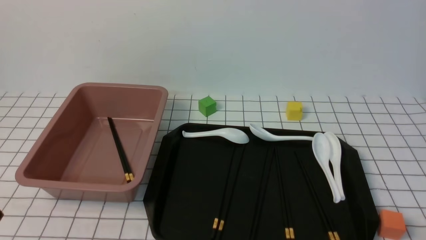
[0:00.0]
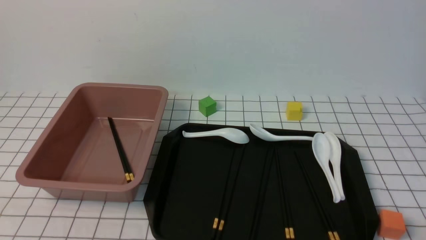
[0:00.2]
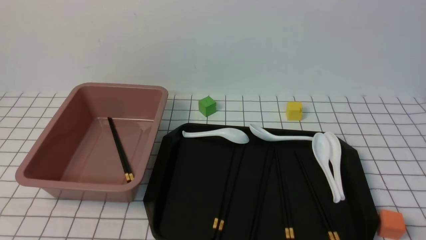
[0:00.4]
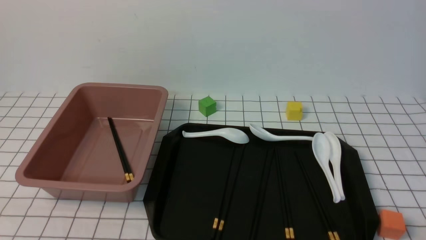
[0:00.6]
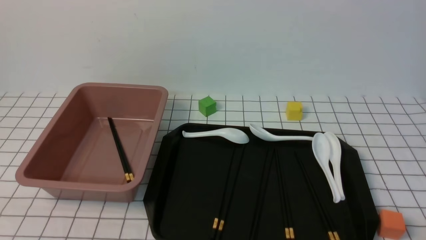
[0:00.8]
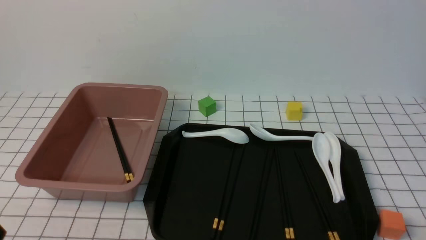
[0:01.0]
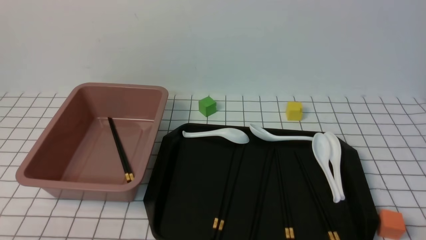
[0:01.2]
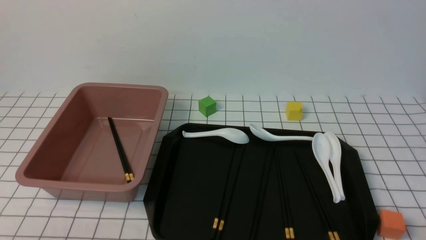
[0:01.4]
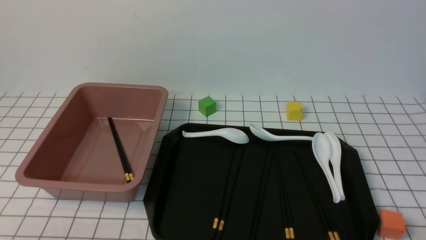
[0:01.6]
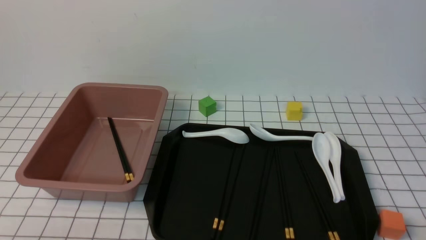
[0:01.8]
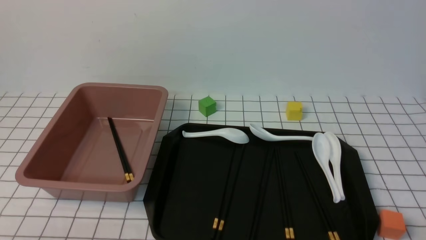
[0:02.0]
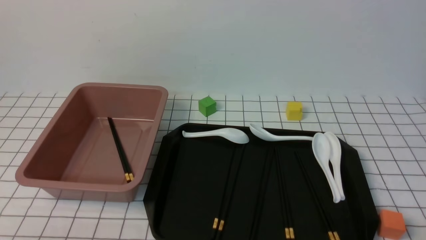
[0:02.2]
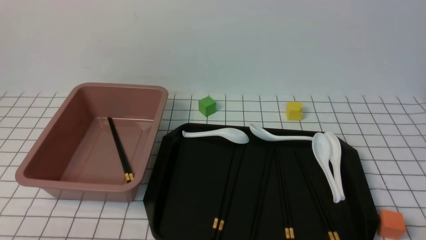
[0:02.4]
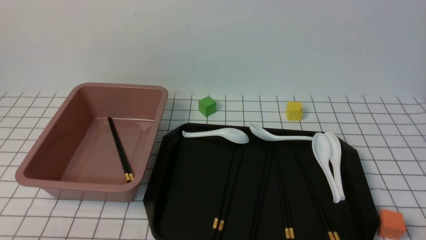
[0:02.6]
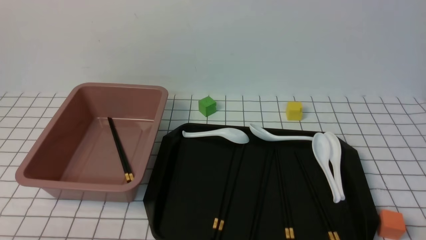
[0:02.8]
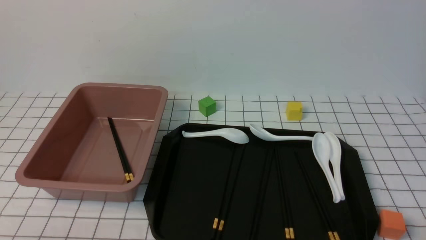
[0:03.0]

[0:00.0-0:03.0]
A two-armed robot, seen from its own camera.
0:01.6 to 0:03.0: The two grippers keep their place.
